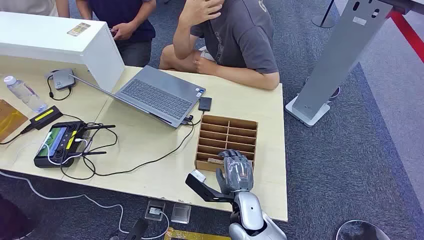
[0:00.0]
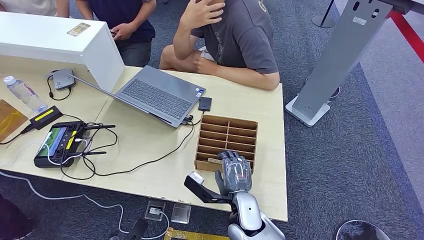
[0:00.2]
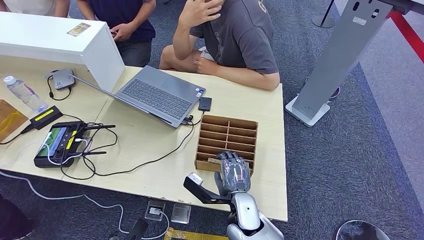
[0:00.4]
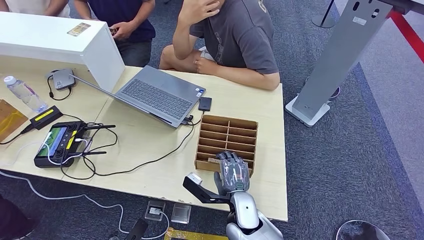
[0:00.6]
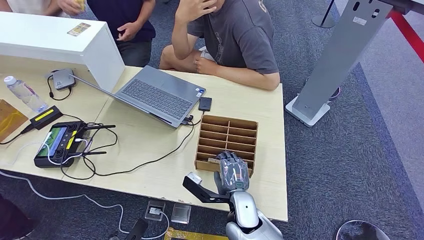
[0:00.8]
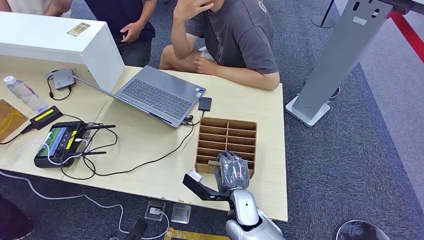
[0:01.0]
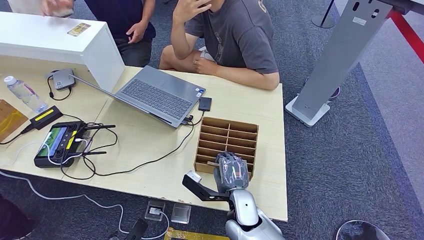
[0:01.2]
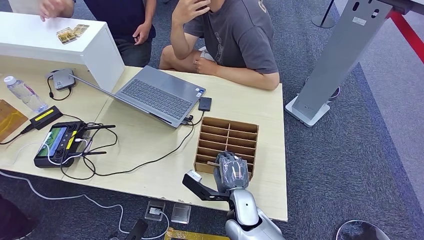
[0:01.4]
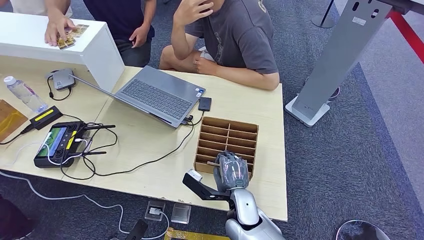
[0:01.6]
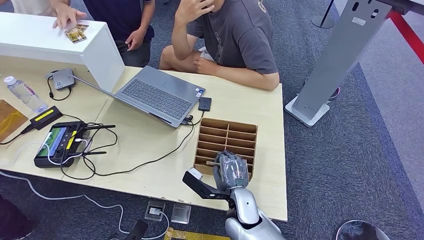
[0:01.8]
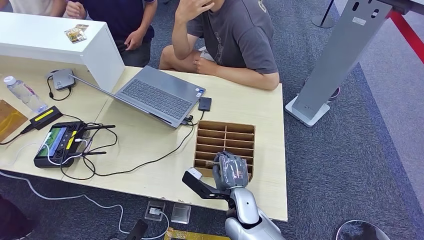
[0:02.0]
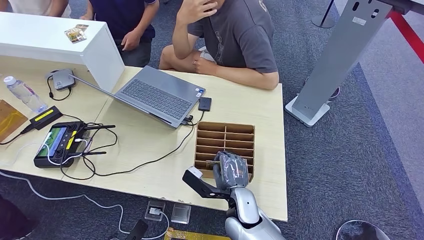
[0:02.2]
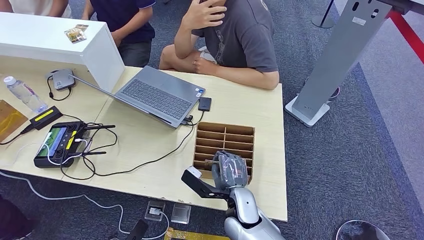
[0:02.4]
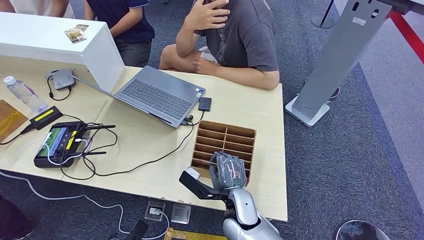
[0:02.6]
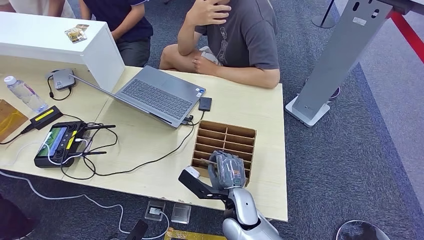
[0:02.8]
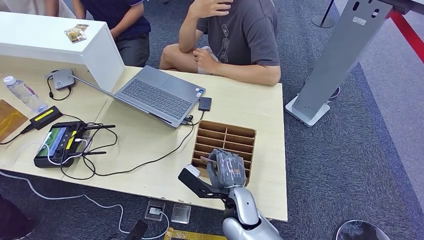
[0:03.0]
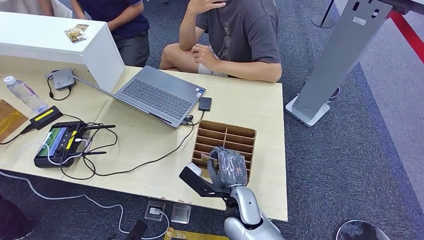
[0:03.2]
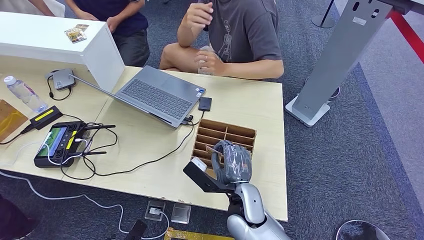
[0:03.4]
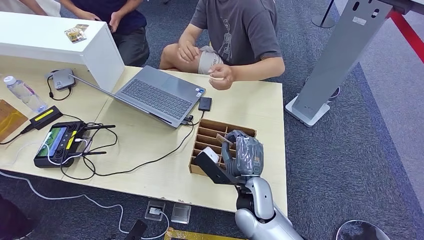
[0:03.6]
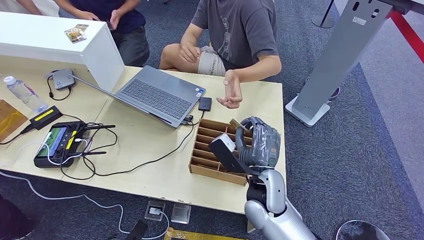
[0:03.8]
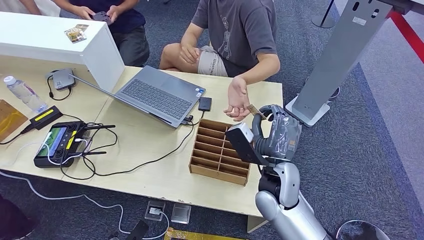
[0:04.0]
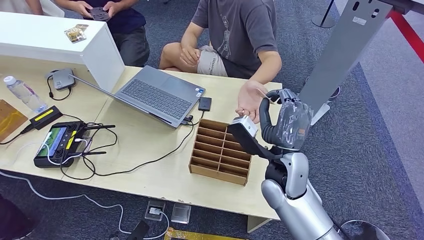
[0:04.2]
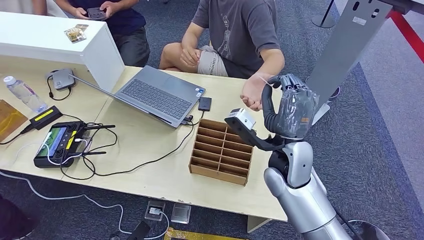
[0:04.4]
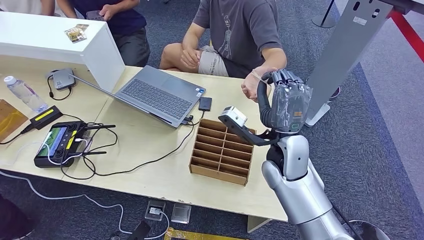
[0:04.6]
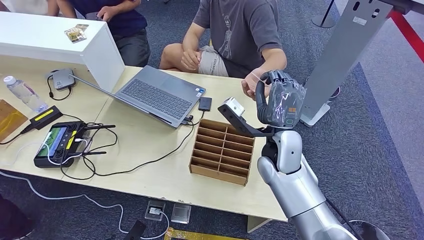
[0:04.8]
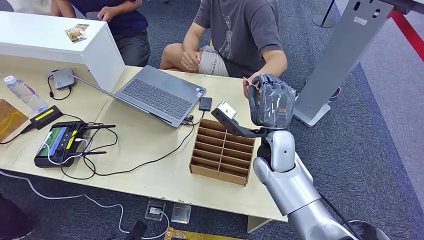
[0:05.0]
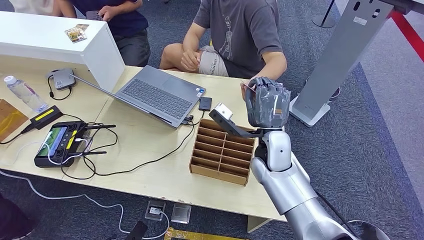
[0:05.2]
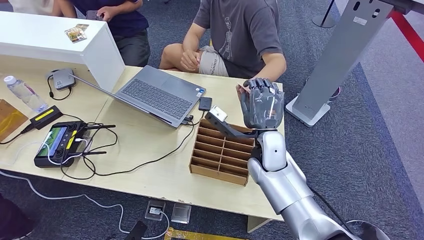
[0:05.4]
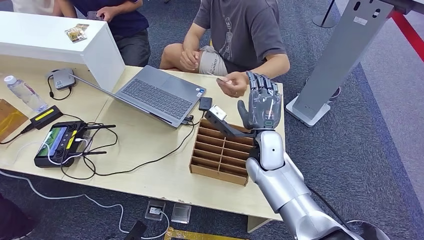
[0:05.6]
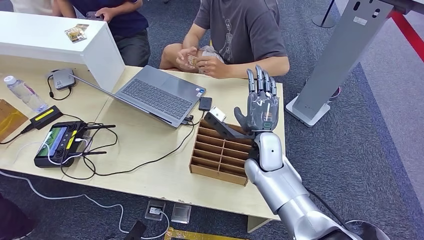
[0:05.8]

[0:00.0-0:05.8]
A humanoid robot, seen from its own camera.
Step, 0:00.0 to 0:03.2: Pick up the key card from the card box.
Step, 0:03.8 to 0:05.8: Hand the key card to the target.
0:01.4 to 0:02.8: The hands stay close to where they were, moving slightly.
0:02.8 to 0:04.4: The right hand moves upward, to the right and forward, about 20 cm.
0:04.4 to 0:05.8: The right hand is displaced downward by approximately 5 cm.

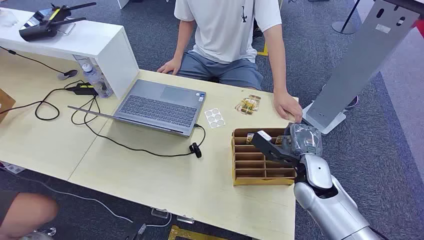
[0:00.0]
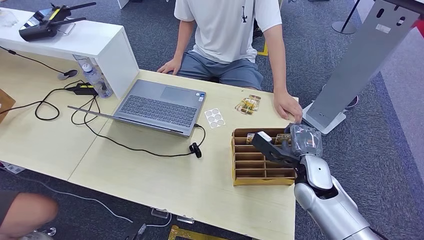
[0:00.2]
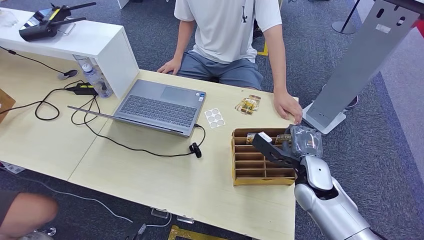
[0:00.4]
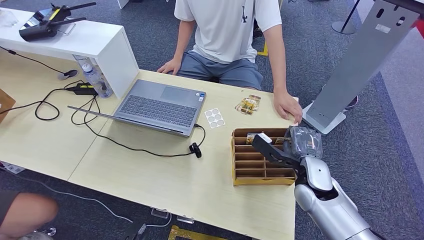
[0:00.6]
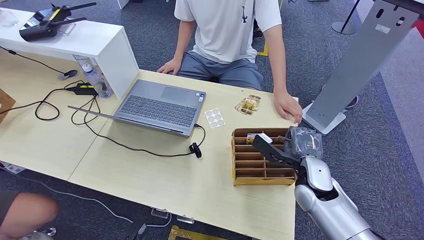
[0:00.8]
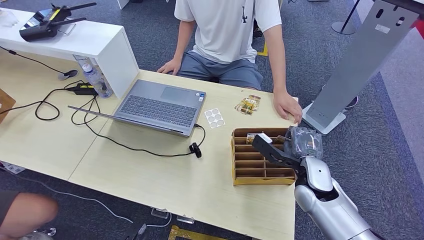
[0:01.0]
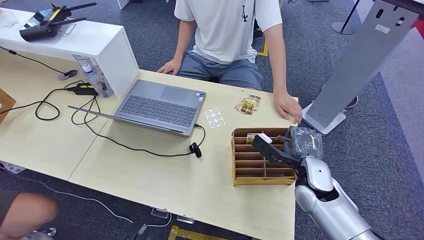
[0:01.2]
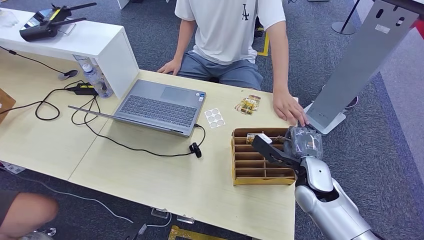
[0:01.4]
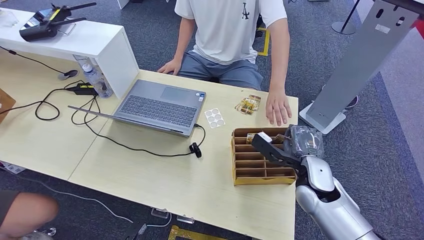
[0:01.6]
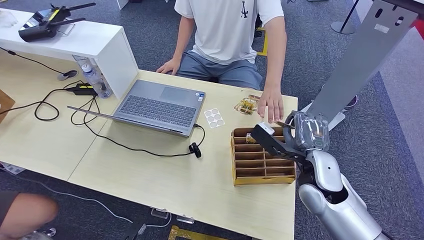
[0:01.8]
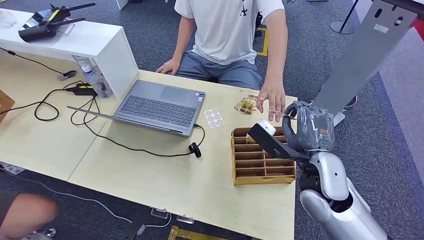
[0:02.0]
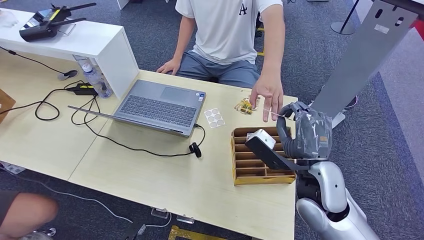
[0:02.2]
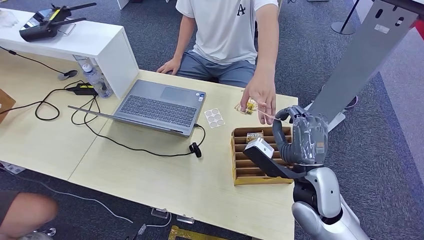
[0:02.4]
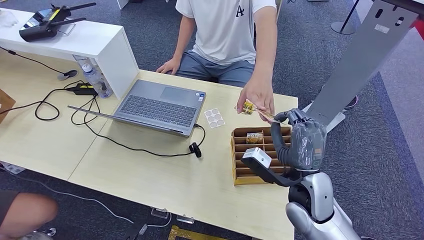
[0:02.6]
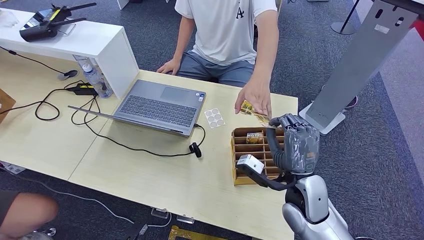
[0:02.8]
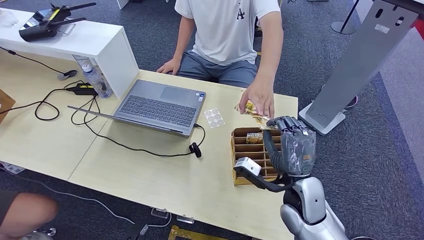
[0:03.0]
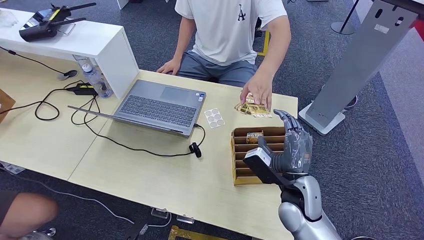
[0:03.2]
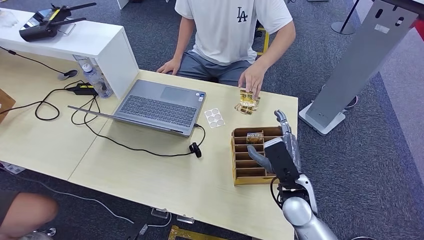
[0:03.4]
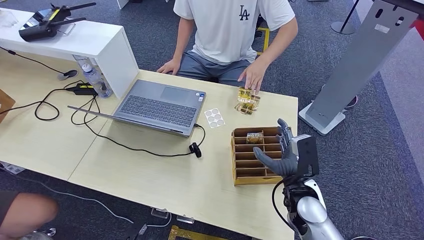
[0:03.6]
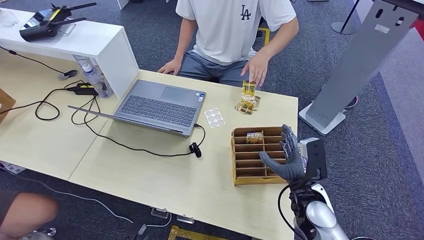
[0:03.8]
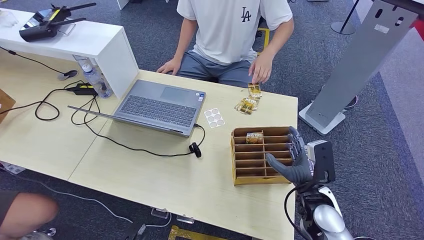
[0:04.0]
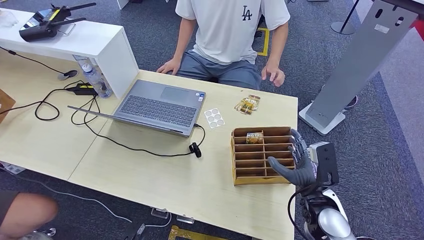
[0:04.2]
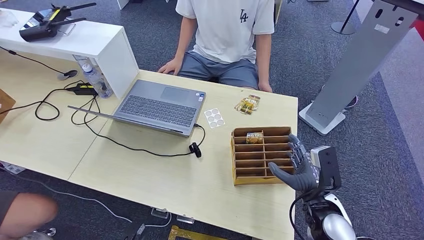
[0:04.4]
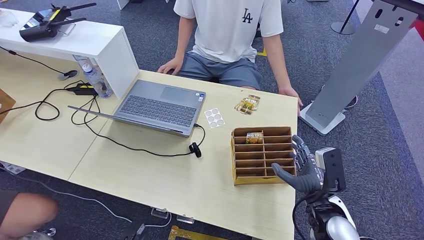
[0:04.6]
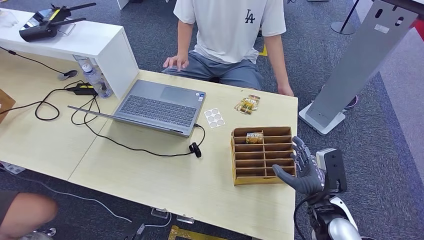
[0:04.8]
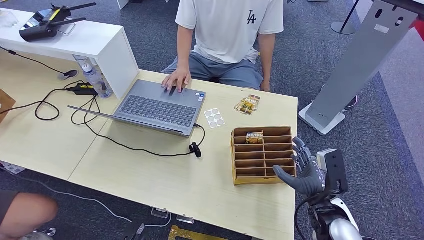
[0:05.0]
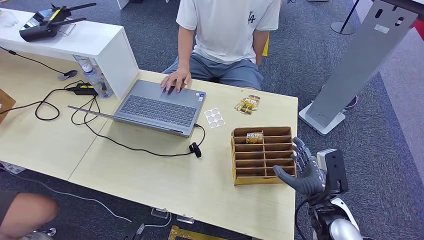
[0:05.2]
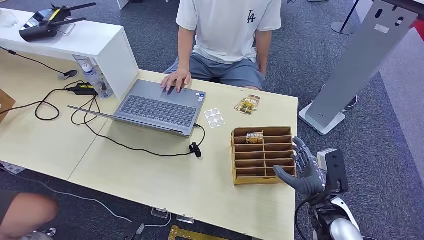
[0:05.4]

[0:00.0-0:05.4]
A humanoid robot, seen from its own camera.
Step, 0:00.0 to 0:02.0: Pick up the key card from the card box.
Step, 0:02.2 to 0:05.2: Hand the key card to the target.
0:01.4 to 0:02.8: The right hand travels backward by approximately 5 cm, and moves approximately 10 cm upward and comes back.
0:02.8 to 0:04.0: The right hand is displaced downward by about 5 cm.
0:04.0 to 0:05.4: The hands make only small movements.
